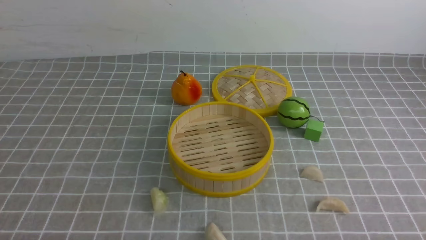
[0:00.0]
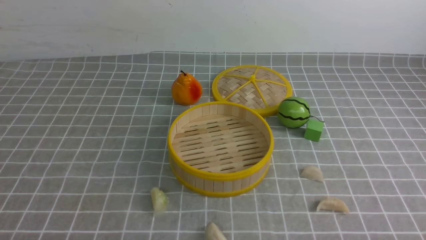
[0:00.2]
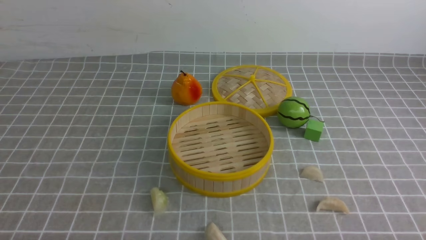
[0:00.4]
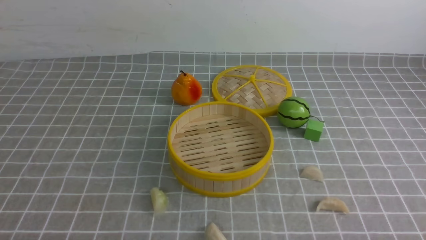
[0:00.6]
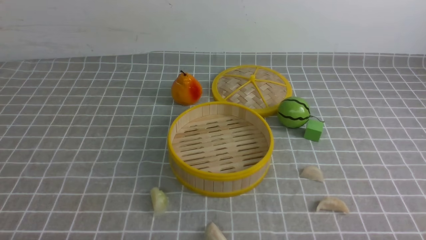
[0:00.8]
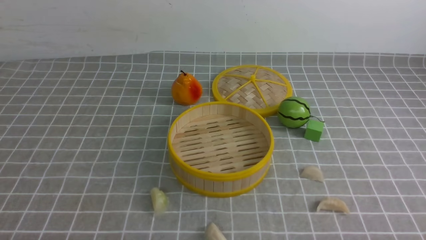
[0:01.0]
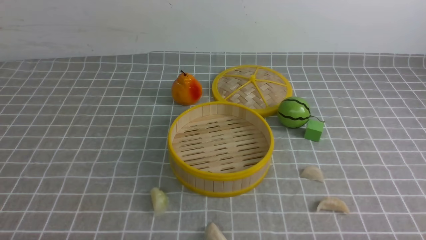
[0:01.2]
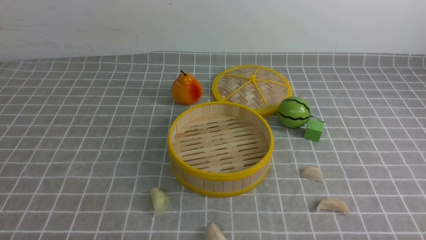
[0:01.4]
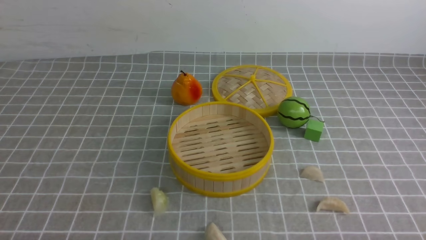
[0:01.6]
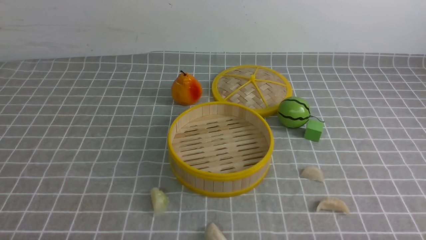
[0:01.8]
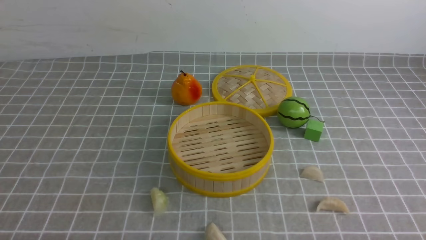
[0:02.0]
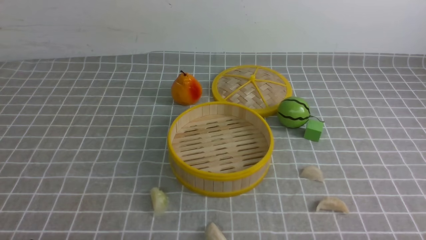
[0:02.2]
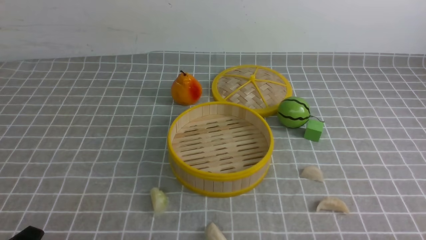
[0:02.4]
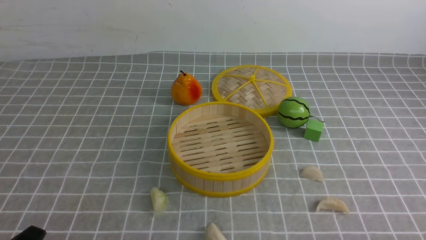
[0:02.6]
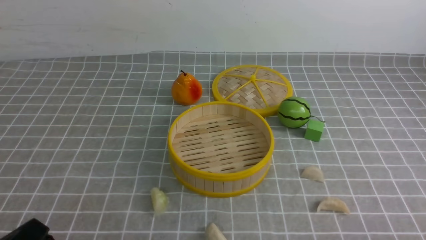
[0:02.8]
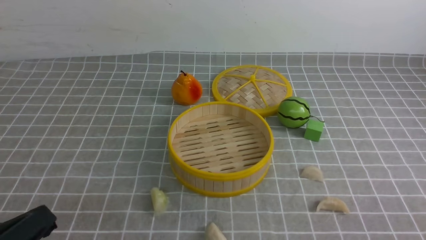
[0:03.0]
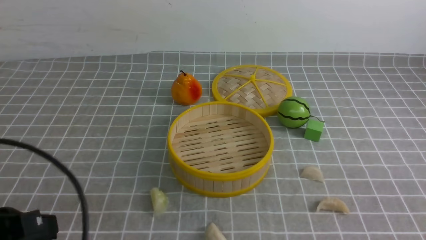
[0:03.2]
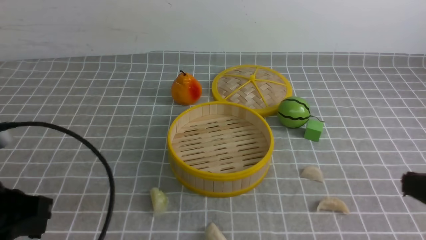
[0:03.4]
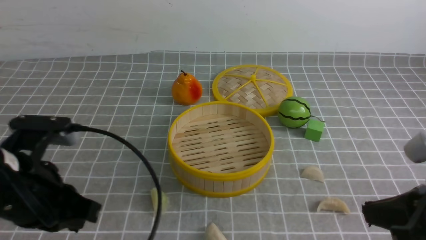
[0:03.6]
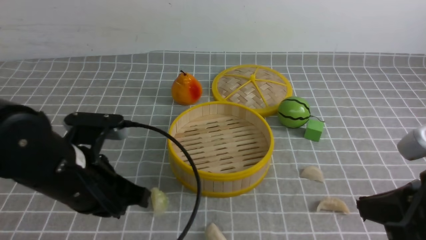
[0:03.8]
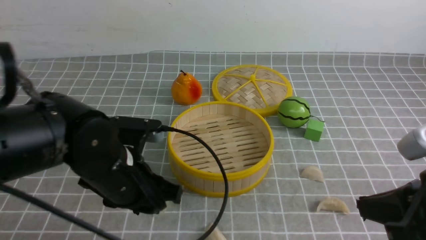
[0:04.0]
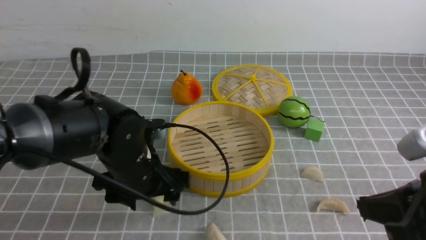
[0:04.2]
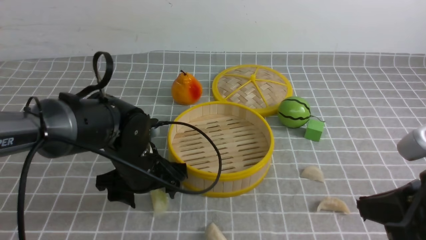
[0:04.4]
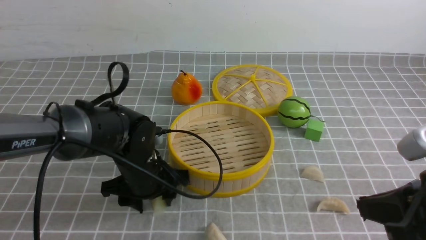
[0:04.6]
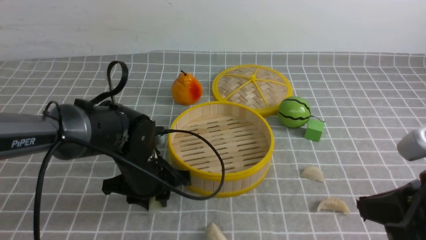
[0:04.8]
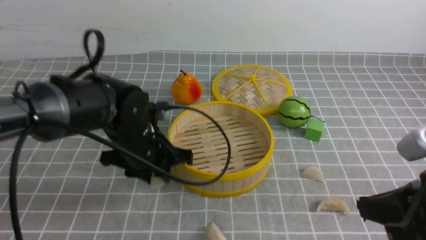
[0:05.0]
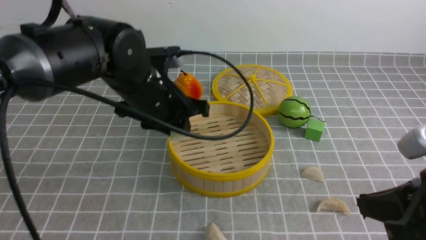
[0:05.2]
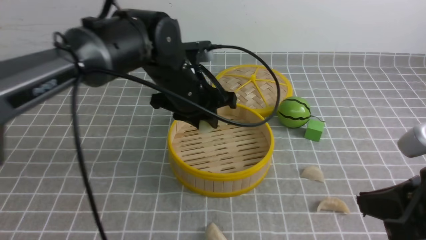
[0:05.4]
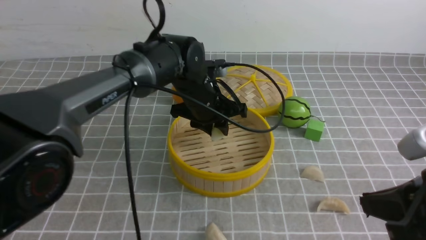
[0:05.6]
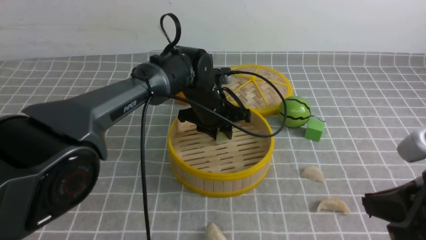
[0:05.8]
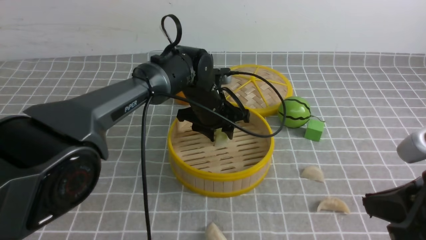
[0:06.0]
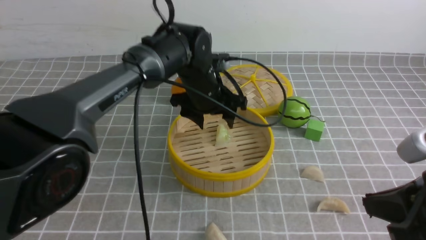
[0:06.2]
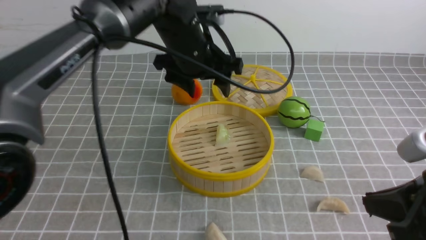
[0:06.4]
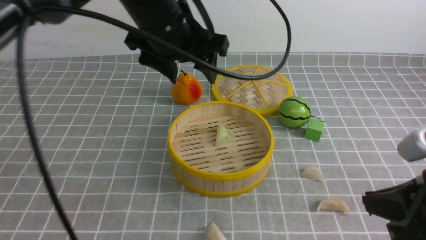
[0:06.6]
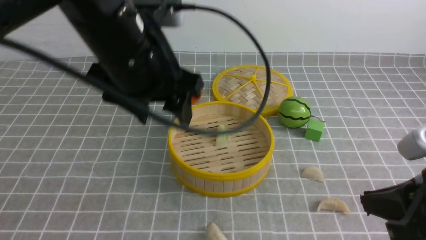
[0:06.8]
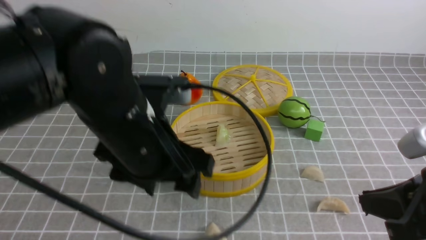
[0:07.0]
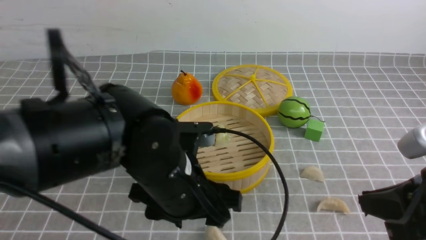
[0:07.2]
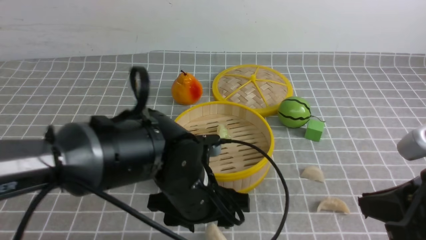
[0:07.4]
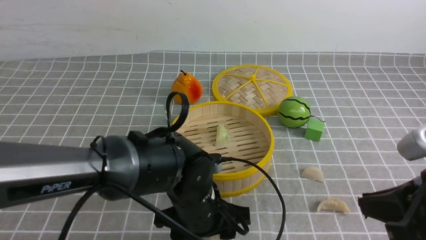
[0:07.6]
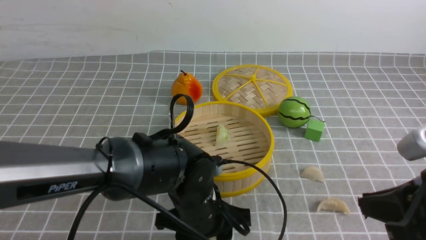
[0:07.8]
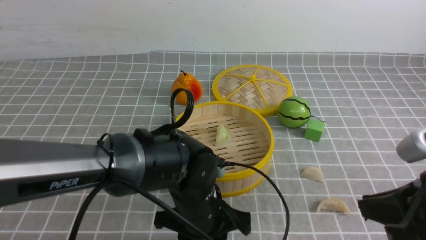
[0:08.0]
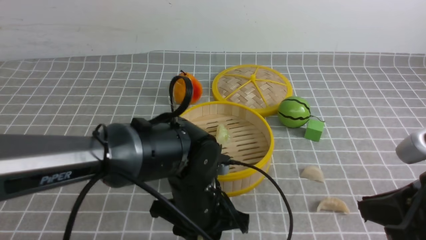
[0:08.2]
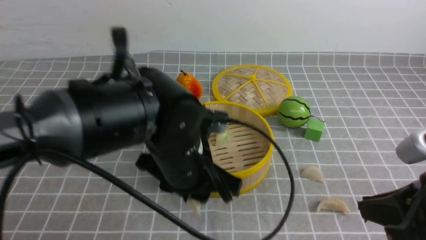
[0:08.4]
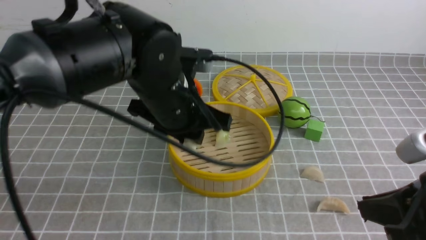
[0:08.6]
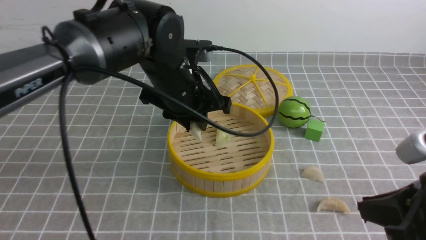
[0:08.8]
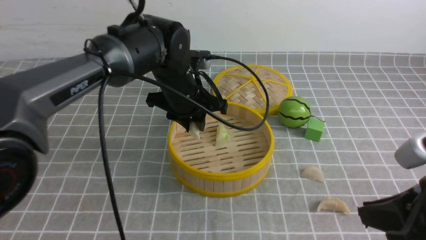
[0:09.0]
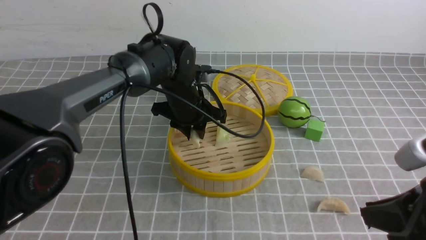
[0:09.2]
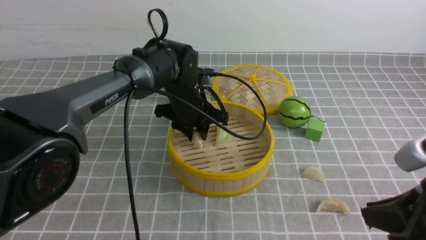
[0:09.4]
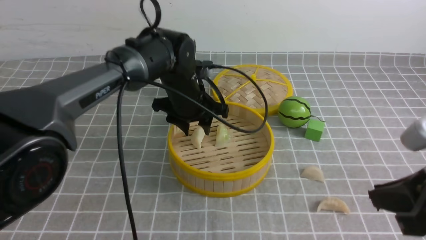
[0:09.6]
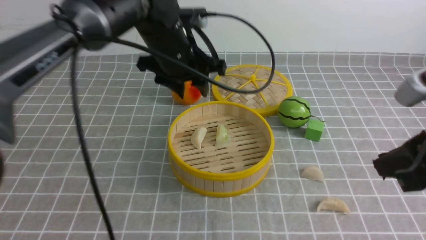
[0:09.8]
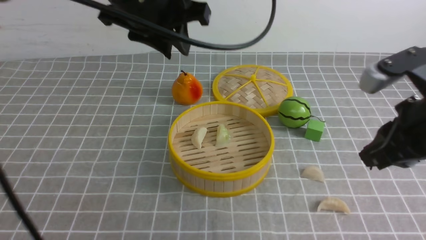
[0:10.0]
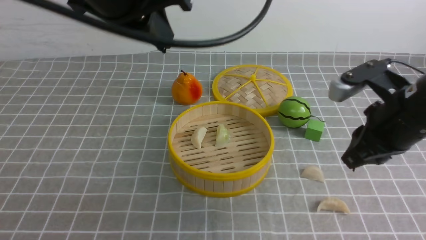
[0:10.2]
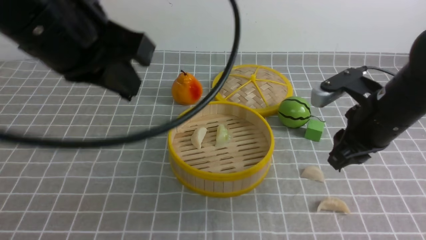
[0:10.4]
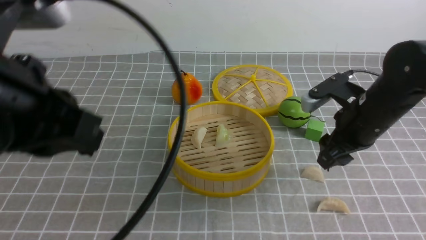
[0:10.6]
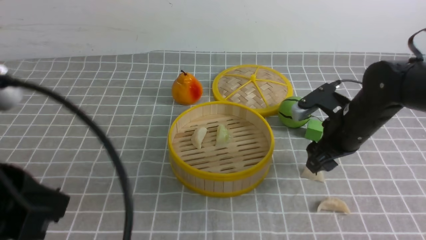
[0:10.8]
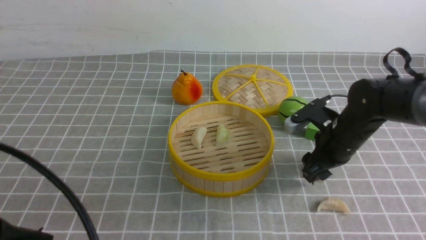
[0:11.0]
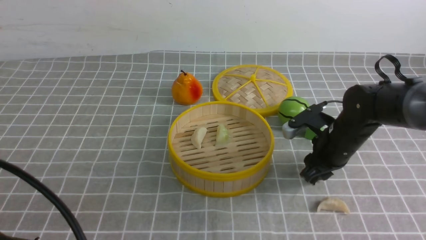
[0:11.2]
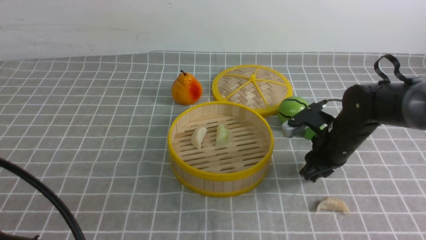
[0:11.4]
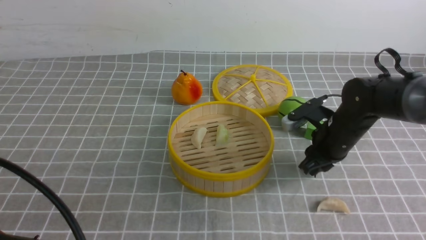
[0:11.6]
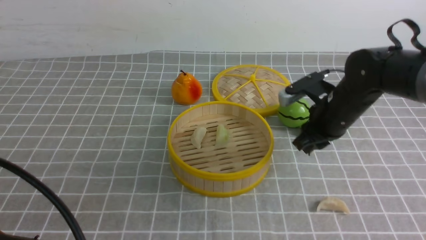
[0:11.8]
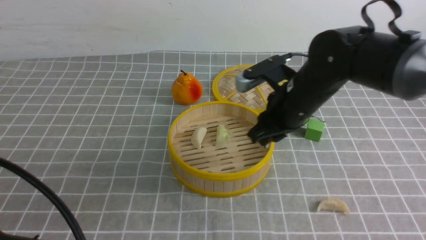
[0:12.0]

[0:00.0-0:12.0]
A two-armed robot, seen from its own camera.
Task of the whole recording: put the dumplings into the steamer on the table with the grey tablecloth.
Step, 0:00.0 to 0:04.8: use the left arm to grab a dumpling.
Step, 0:05.2 to 0:06.0: use the left arm to put the dumpling into the steamer.
Step, 0:06.4 to 0:07.6: use the left arm to grab a dumpling.
Step, 0:08.0 to 0:09.6: use the left arm to put the dumpling into the steamer.
Step, 0:10.0 to 0:11.6: use the right arm to grab a dumpling.
0:01.6 to 0:03.0: The left gripper heads upward, covering approximately 5 cm.
0:03.0 to 0:04.4: The right gripper moves forward, upward and to the left, roughly 15 cm; the left gripper goes roughly 25 cm forward and to the right, and opens up.
0:04.4 to 0:06.0: The left gripper is displaced forward and to the right by about 15 cm, and closes up.
0:06.0 to 0:07.6: The left gripper shifts approximately 20 cm backward.
0:07.6 to 0:09.0: The left gripper is displaced forward and upward by some 15 cm, and closes.
0:09.0 to 0:10.4: The left gripper goes some 25 cm upward, backward and to the left, and closes its fingers; the right gripper travels forward by about 15 cm.
0:10.4 to 0:12.0: The right gripper shifts approximately 10 cm to the left, forward and downward, and opens, then closes again. The left gripper shifts approximately 20 cm backward, downward and to the left.

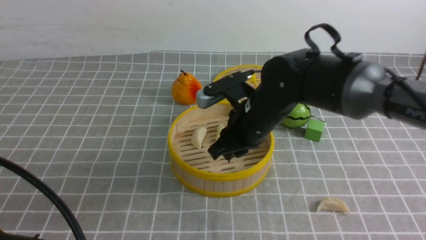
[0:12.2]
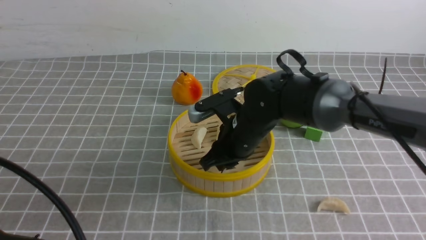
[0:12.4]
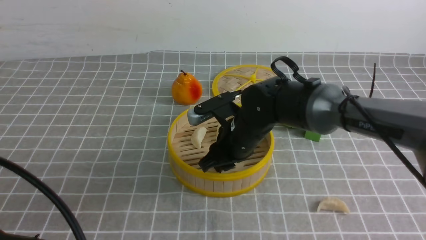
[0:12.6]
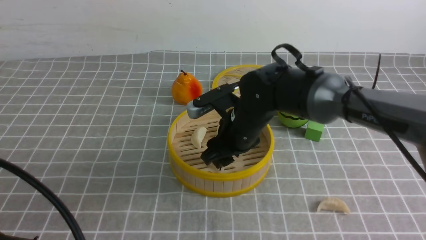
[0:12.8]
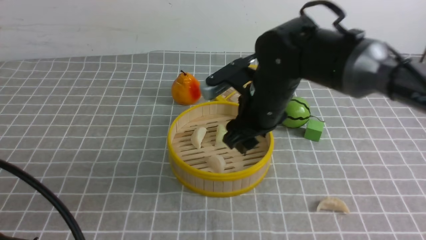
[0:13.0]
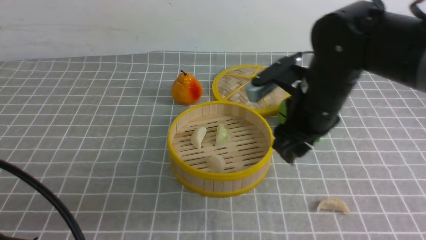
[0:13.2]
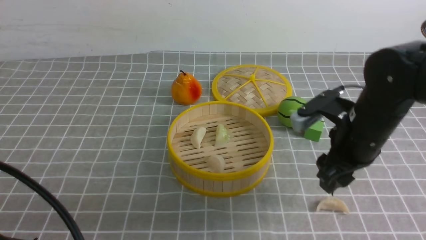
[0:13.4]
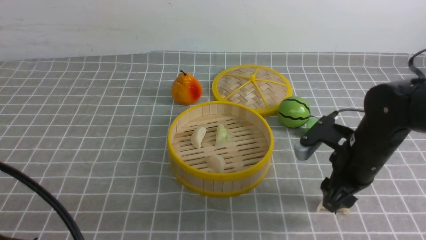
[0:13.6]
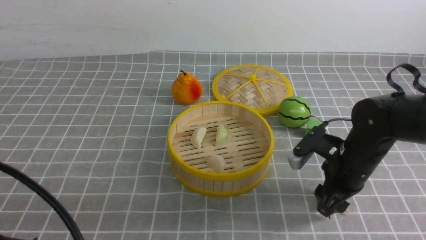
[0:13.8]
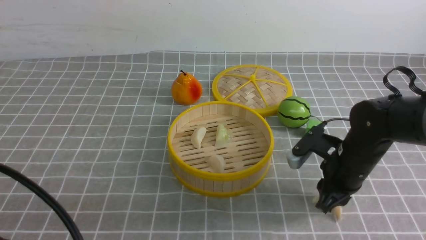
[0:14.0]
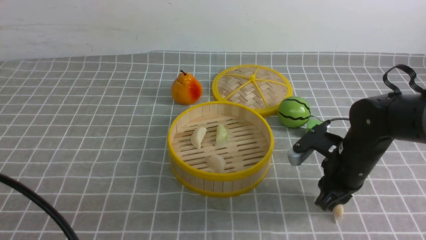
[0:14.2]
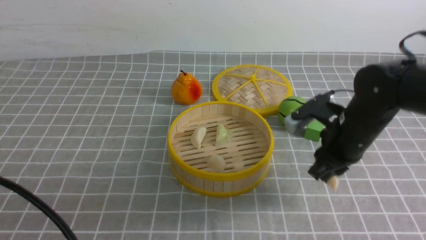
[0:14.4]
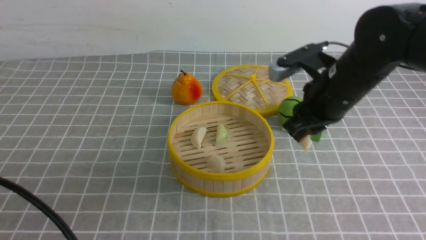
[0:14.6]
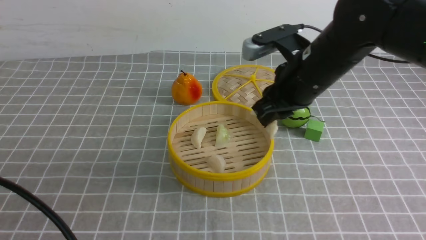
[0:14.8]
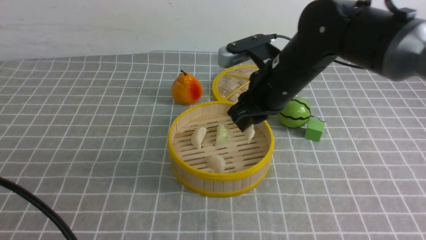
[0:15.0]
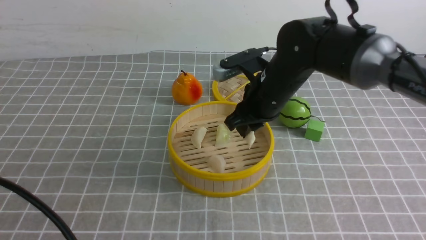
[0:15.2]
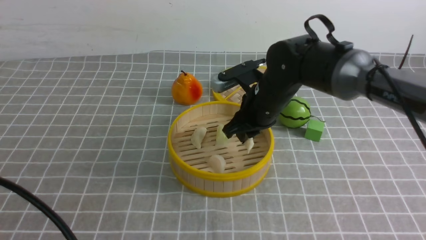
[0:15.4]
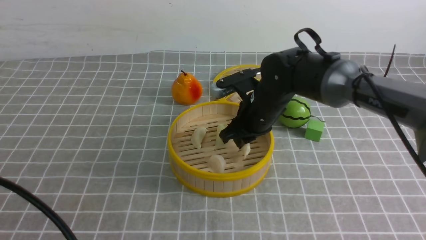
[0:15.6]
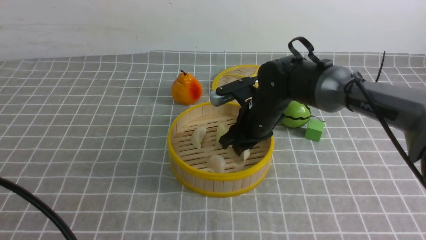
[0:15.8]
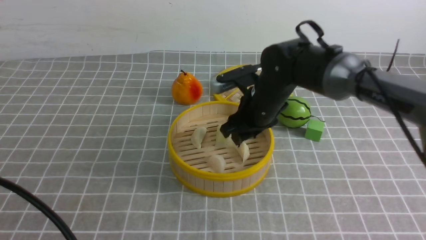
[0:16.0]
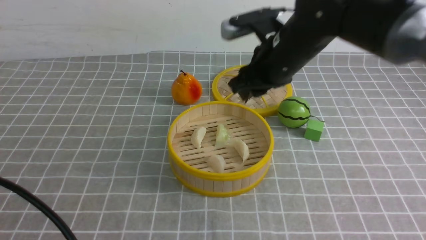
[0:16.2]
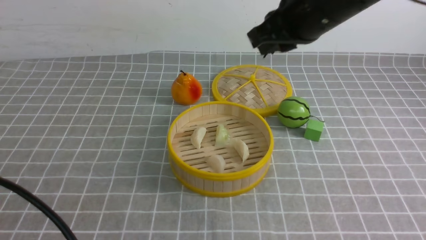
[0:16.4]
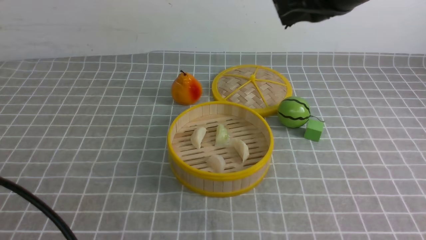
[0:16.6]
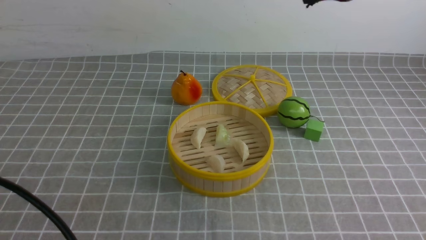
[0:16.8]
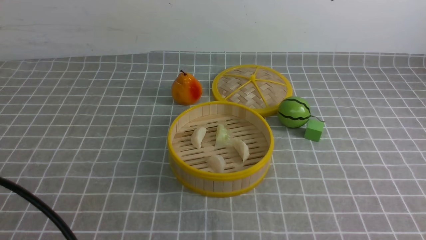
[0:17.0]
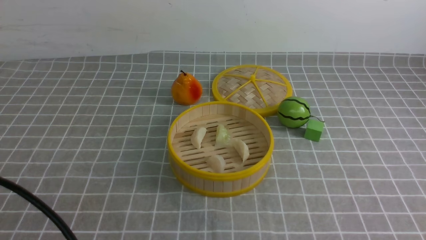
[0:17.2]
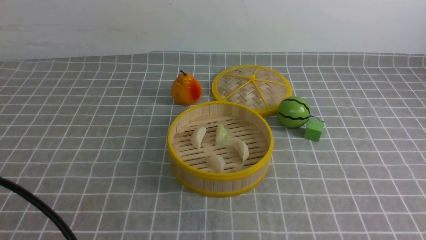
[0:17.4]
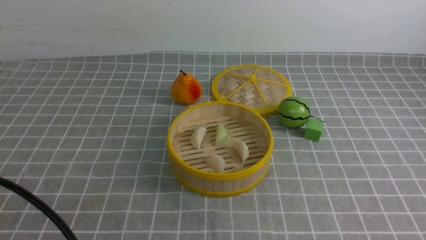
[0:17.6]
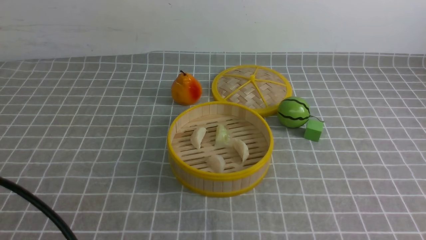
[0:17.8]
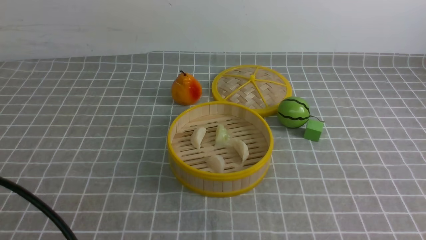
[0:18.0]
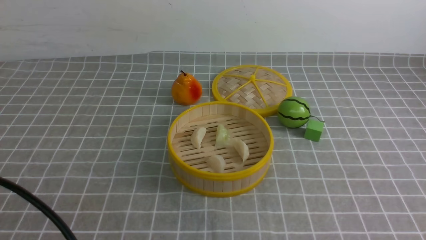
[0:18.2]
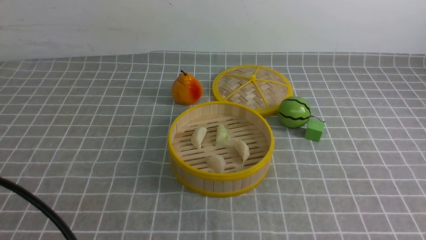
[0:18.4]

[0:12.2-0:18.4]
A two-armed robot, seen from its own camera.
Task of the whole recording: put the dumplings into the steamer on the table with the grey tablecloth.
Step, 0:12.2 to 0:13.0: use the right arm to put the dumpling into the steamer.
Step, 0:13.2 to 0:14.2: use the right arm to grab a dumpling.
Step, 0:14.4 to 0:16.0: use the right arm to put the dumpling into the steamer.
0:12.2 to 0:13.8: The right gripper goes roughly 15 cm to the right and downward, and opens up.
0:13.8 to 0:15.4: The right gripper shifts roughly 15 cm to the left, forward and upward, and closes.
0:15.4 to 0:16.8: The right gripper travels upward and backward by approximately 25 cm, and closes up.
